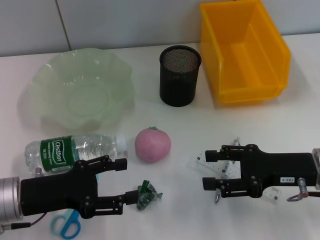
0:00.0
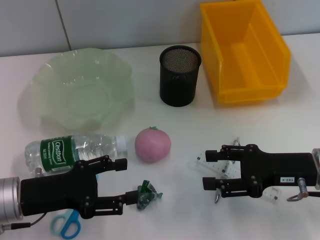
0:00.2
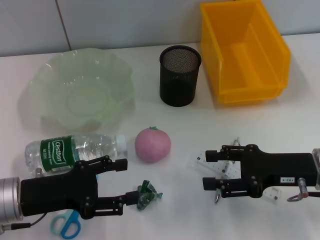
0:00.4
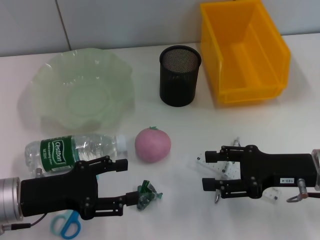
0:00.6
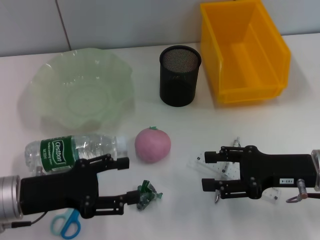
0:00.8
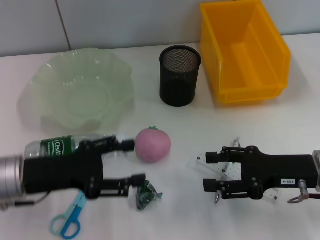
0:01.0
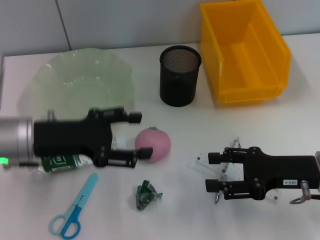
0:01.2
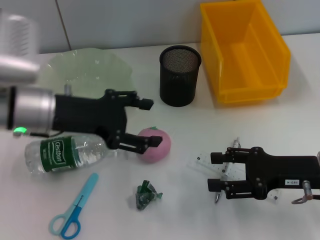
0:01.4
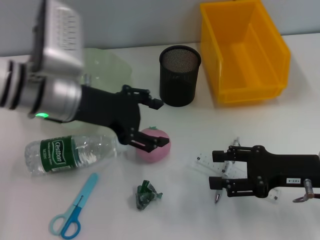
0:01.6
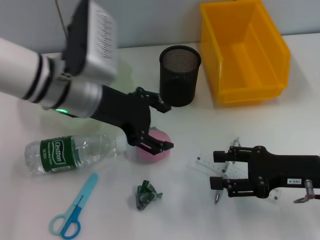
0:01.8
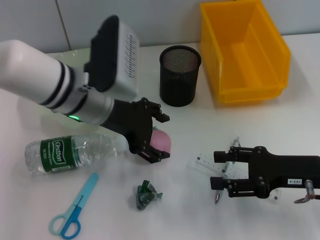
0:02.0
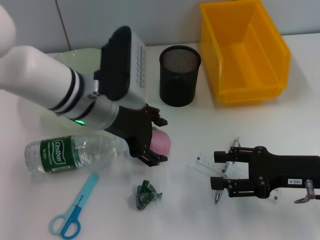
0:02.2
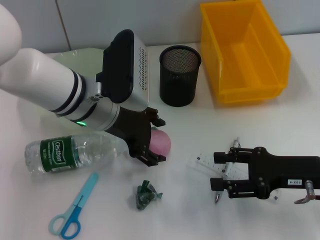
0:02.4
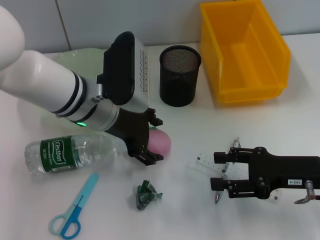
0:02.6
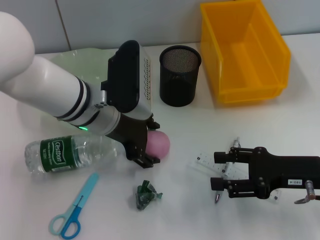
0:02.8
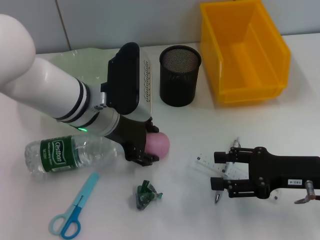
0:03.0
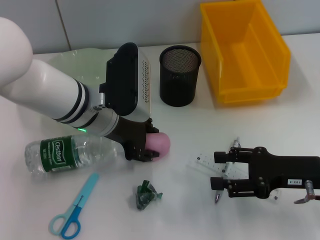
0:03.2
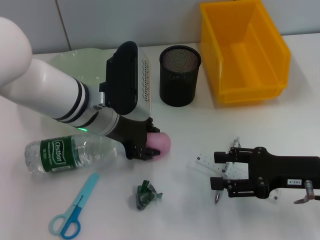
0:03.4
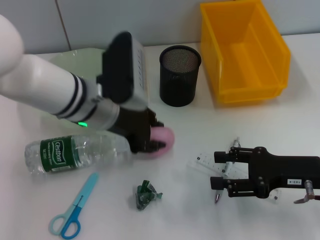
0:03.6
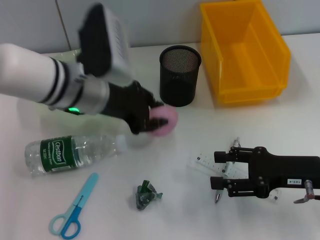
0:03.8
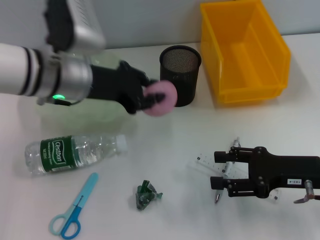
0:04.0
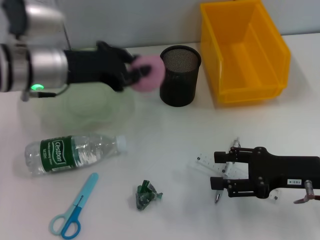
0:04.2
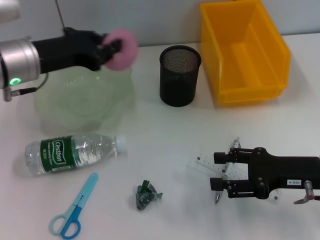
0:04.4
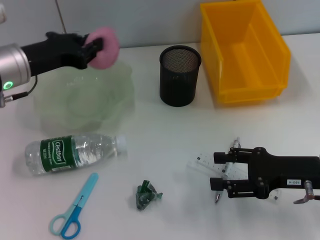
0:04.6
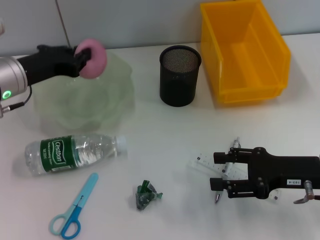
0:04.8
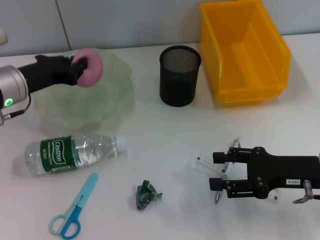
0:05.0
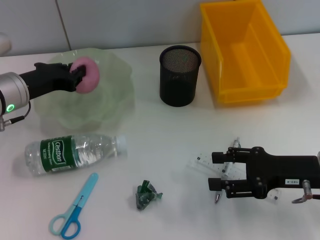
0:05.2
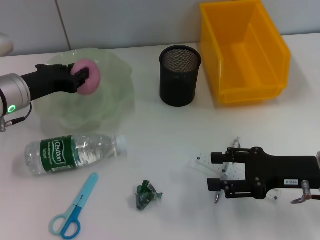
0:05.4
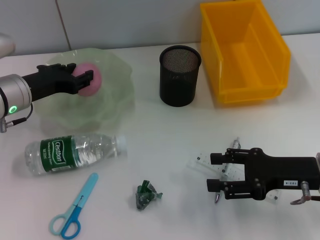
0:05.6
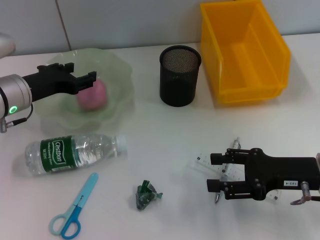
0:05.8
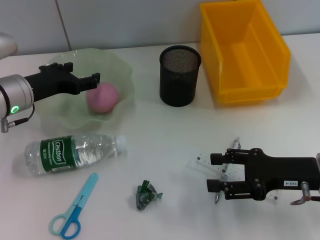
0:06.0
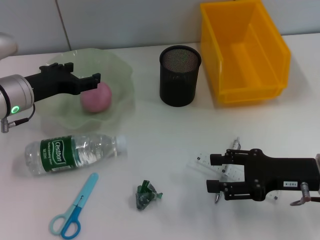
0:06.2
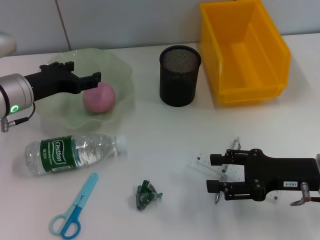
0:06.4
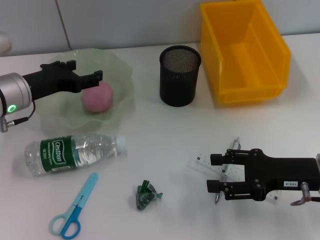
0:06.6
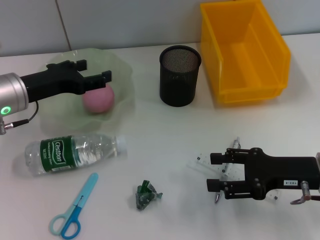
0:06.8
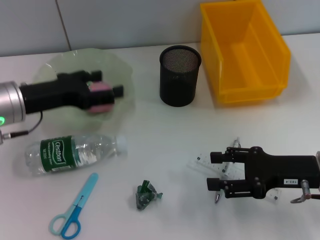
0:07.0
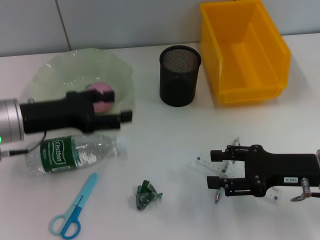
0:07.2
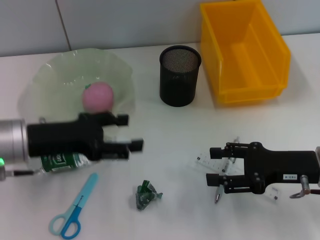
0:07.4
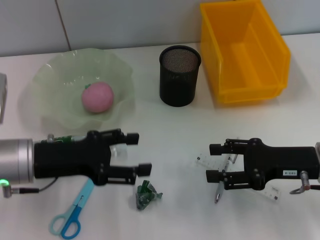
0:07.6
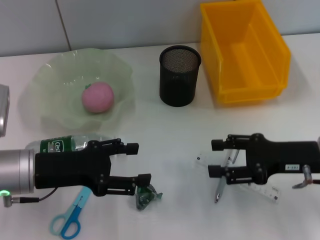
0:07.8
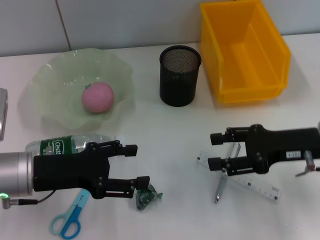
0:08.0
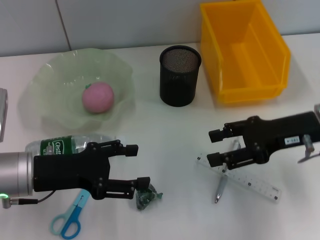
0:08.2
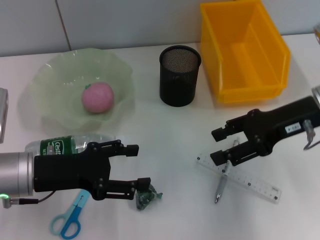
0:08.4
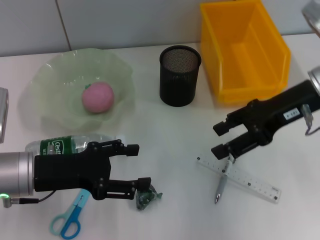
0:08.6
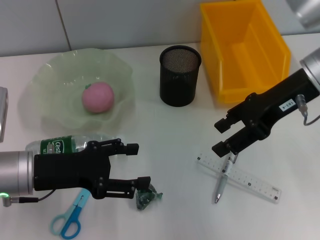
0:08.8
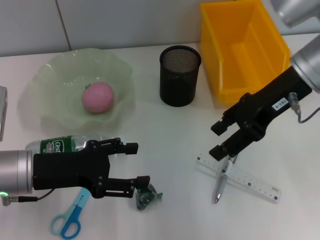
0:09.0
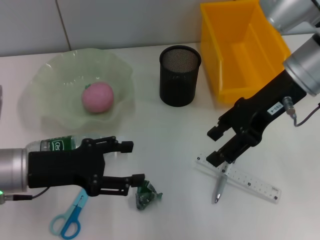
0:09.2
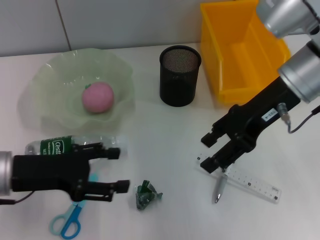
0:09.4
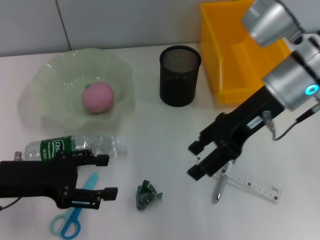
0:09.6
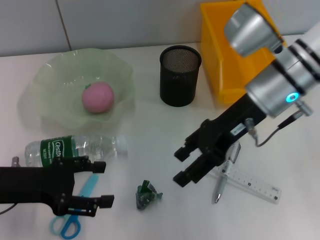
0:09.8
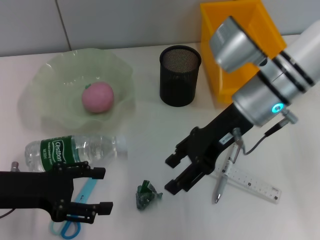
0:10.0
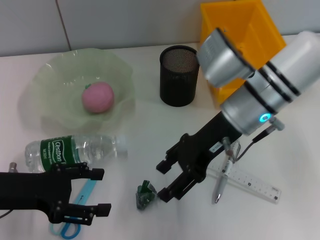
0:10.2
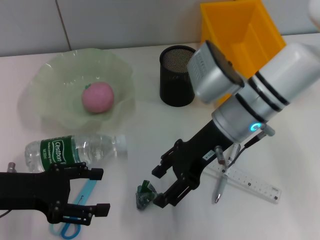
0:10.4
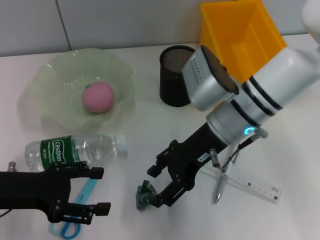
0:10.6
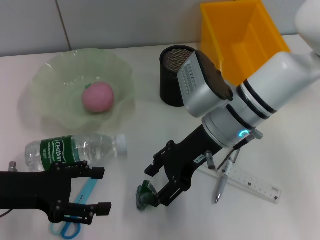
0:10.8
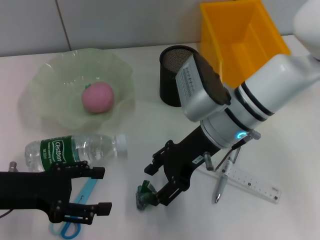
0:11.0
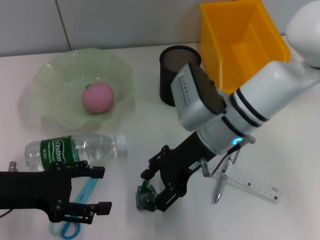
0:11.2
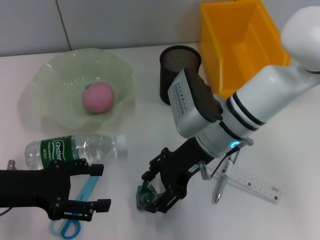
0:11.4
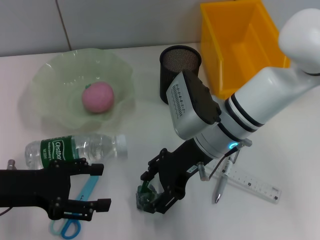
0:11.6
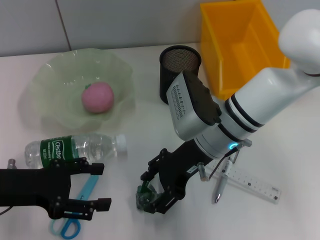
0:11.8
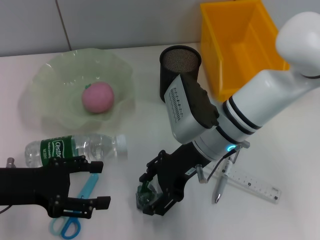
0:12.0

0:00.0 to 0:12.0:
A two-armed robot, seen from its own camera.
Step, 0:00.0 to 0:03.2: Grab the peach with the left hand.
Step, 0:03.4 to 0:05.8: Place the peach into the fruit bowl with the left hand.
0:00.0 to 0:01.6: The left gripper moves upward, forward and to the right, about 15 cm.
0:01.6 to 0:03.0: The left gripper moves to the right, about 5 cm.
0:03.0 to 0:04.4: The left gripper moves to the left, about 10 cm, and closes up.
0:04.4 to 0:06.0: The left gripper goes roughly 5 cm downward, and opens.
0:06.0 to 0:07.6: The left gripper moves backward, about 10 cm.
0:07.6 to 0:09.0: The right gripper moves upward, forward and to the left, about 20 cm.
0:09.0 to 0:10.4: The left gripper moves to the left, approximately 5 cm. Meanwhile the right gripper goes roughly 10 cm to the left and downward.
0:10.4 to 0:12.0: The grippers make only small movements.

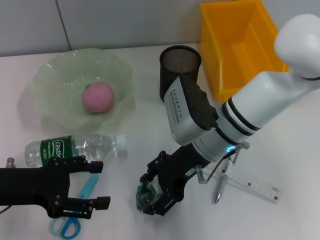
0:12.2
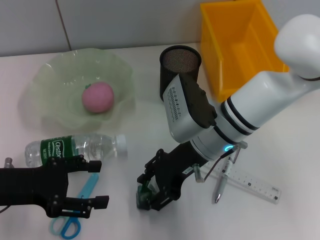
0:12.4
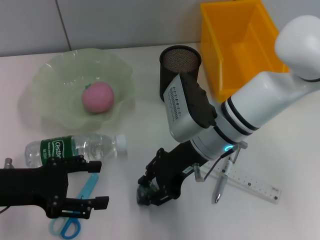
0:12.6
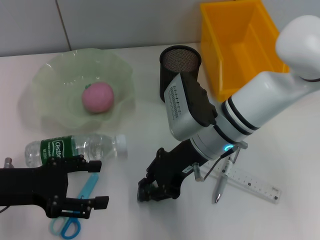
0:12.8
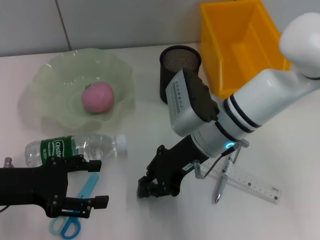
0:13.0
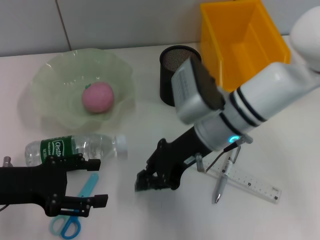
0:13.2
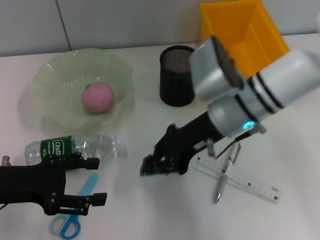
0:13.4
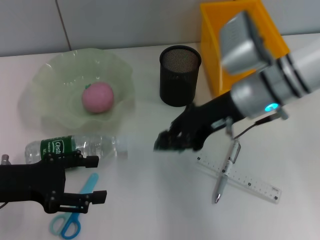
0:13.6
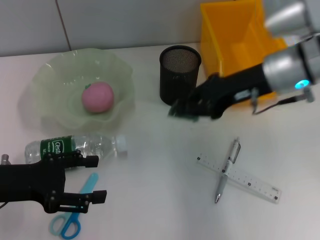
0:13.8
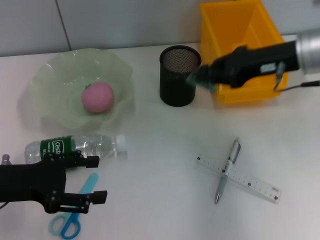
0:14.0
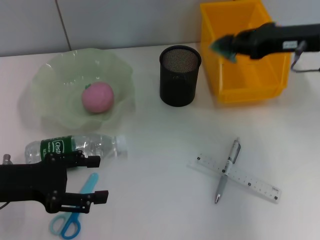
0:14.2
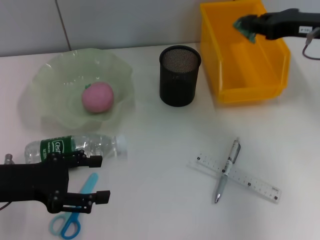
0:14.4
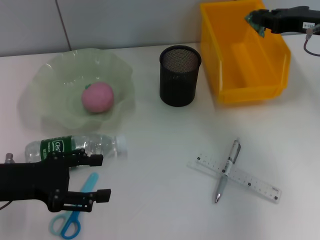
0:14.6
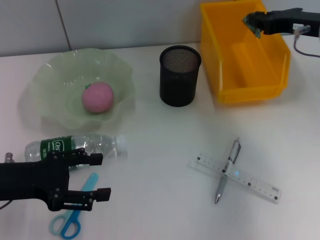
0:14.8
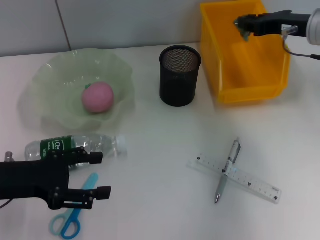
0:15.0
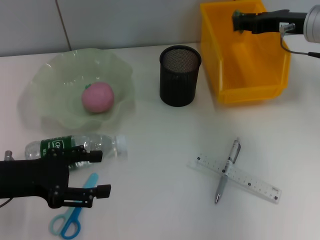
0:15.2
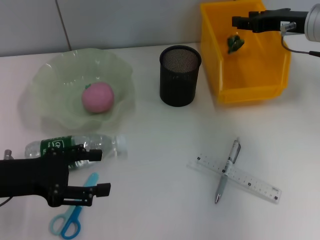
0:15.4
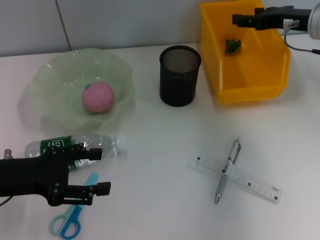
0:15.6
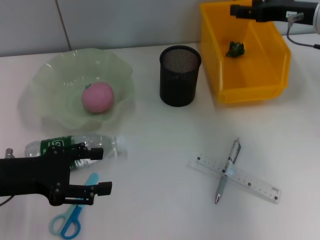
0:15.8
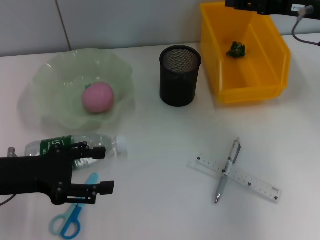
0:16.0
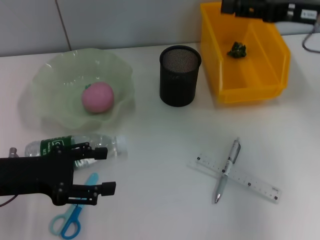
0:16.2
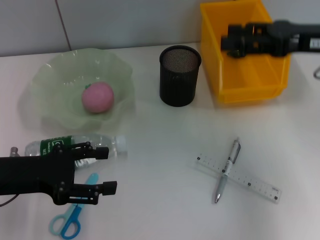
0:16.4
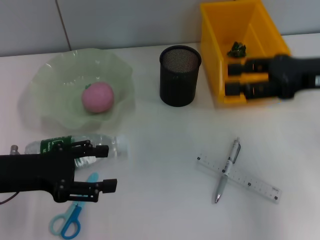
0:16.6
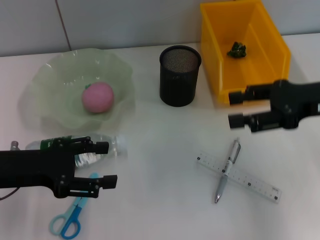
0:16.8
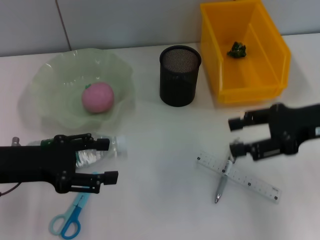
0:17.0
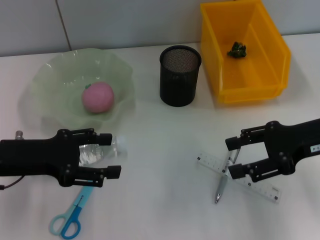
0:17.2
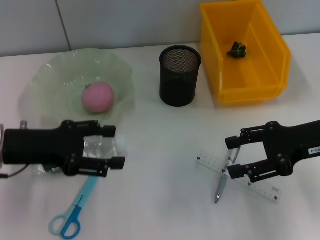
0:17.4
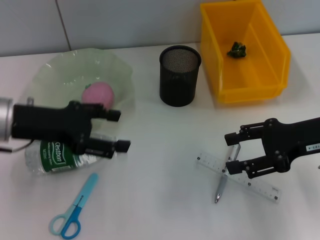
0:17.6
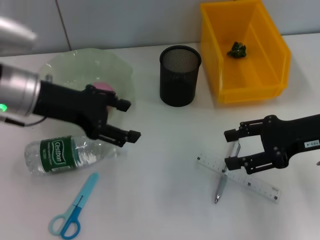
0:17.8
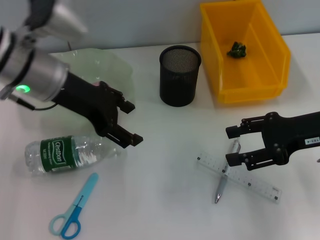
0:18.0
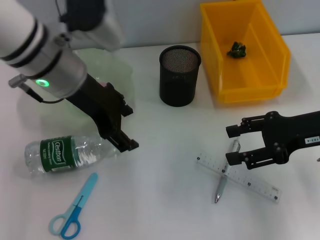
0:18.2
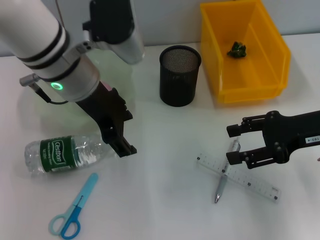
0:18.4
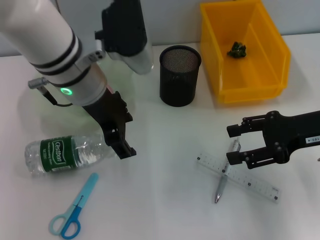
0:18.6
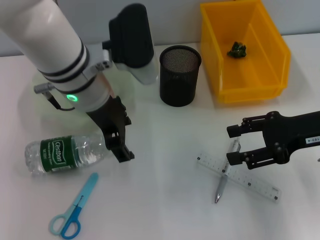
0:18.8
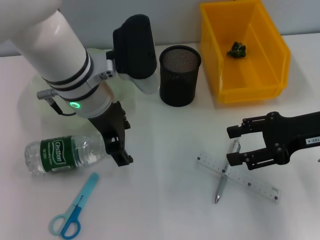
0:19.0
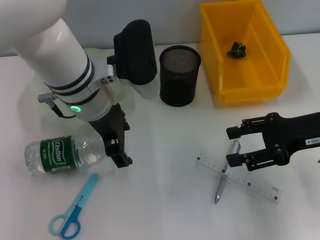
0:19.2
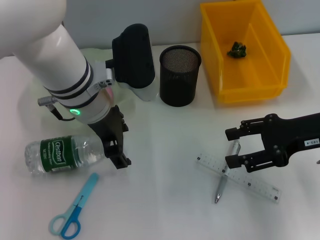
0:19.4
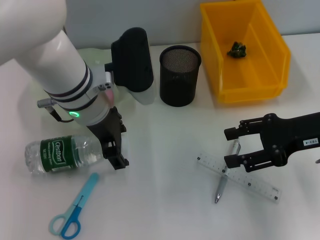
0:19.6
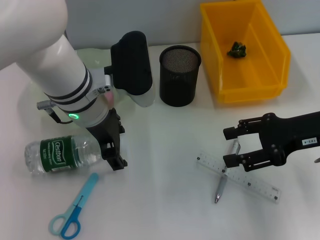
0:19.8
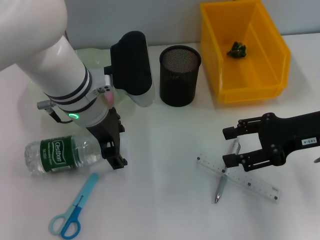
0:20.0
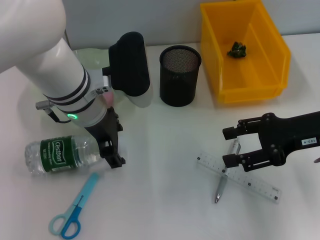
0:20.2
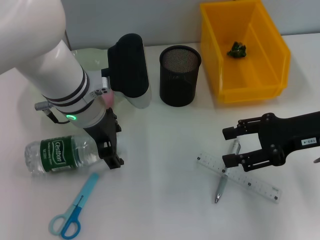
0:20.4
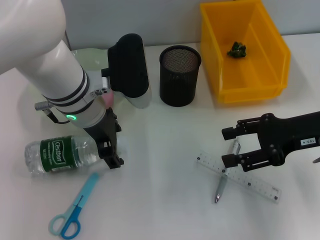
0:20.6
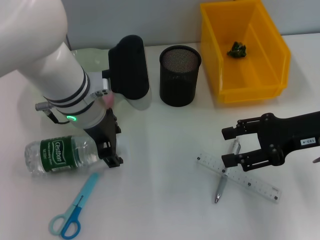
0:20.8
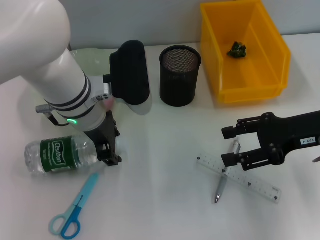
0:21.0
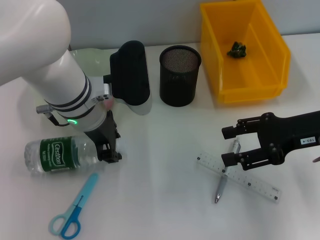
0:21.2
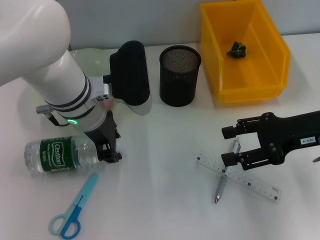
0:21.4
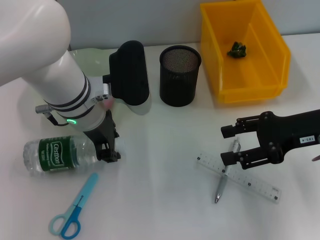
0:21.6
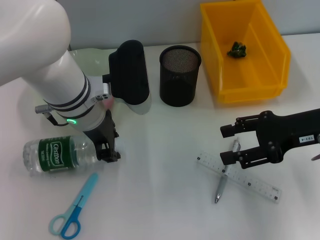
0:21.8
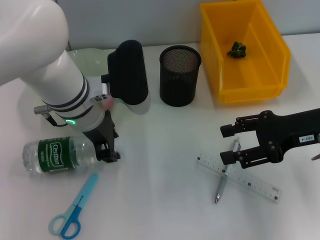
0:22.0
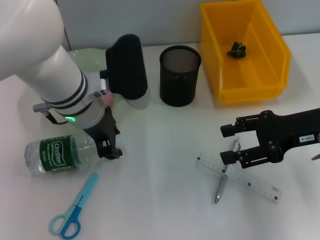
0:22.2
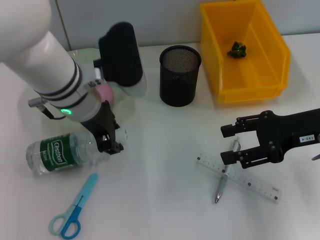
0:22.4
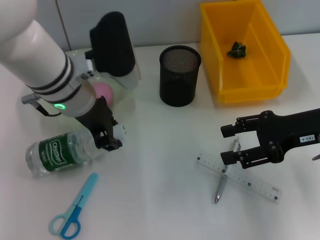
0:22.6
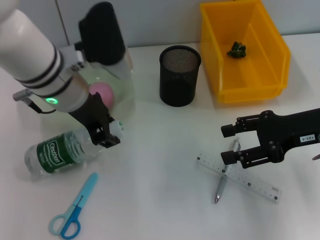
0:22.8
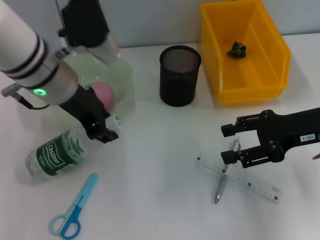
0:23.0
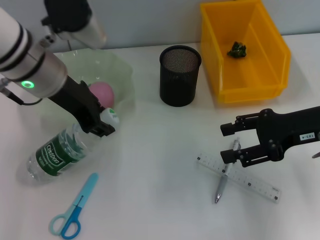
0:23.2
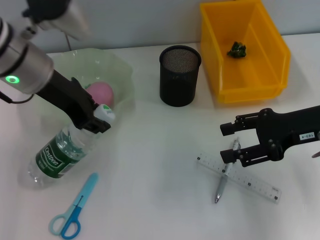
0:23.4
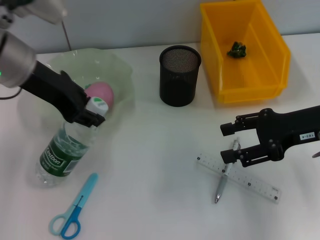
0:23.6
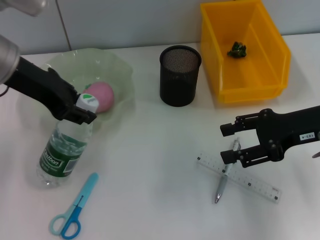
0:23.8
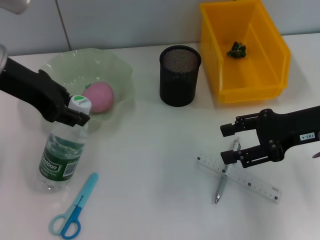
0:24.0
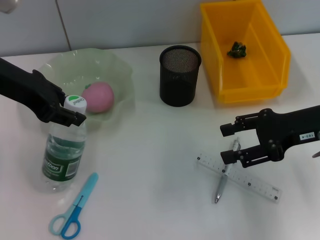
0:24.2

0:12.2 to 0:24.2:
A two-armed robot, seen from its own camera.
Step, 0:13.0 to 0:15.4: Place the plastic into the trash can with the right hand.
Step, 0:15.6 to 0:21.6: Grab the water bottle with the left hand.
0:12.2 to 0:13.8: The right gripper heads to the right and upward, covering approximately 15 cm, and closes its fingers.
0:13.8 to 0:15.2: The right gripper moves to the right and forward, roughly 10 cm.
0:15.2 to 0:16.6: The right gripper travels backward by about 10 cm, and opens its fingers.
0:16.6 to 0:18.2: The left gripper heads to the right, upward and forward, covering about 20 cm. Meanwhile the right gripper heads downward, covering approximately 5 cm.
0:18.2 to 0:19.8: The left gripper moves downward, roughly 5 cm.
0:19.8 to 0:21.2: The left gripper closes up.
0:21.2 to 0:22.6: There are only small adjustments of the grippers.
0:22.6 to 0:24.2: The left gripper heads to the left and upward, covering approximately 15 cm.
